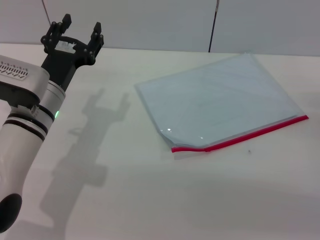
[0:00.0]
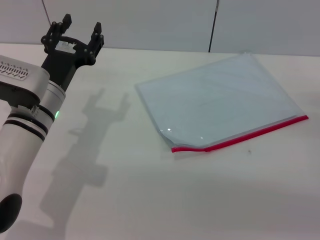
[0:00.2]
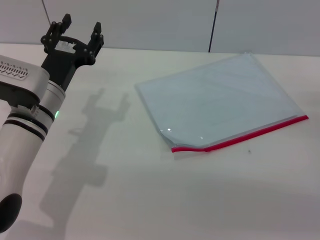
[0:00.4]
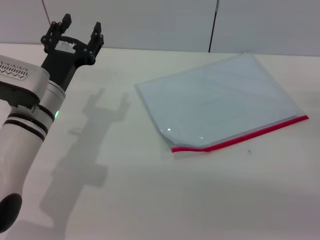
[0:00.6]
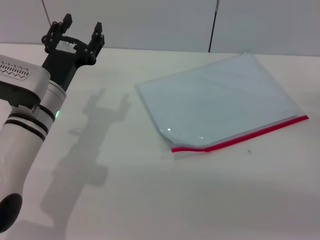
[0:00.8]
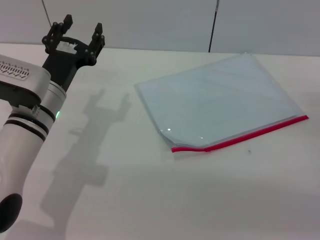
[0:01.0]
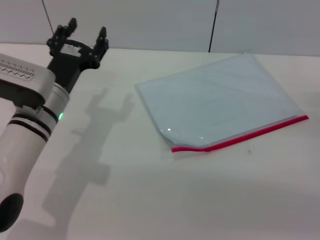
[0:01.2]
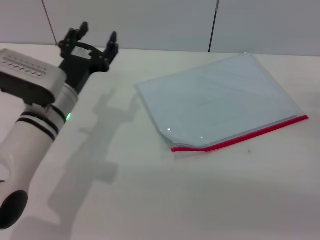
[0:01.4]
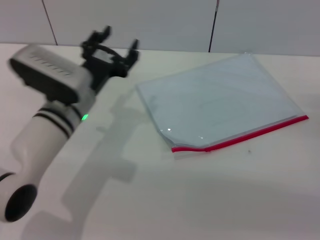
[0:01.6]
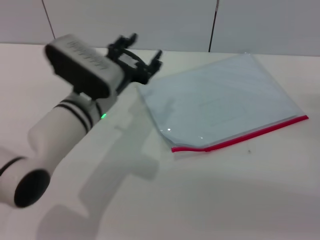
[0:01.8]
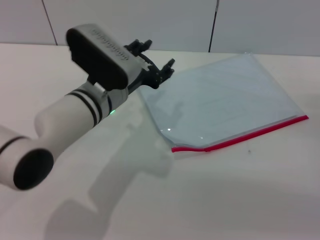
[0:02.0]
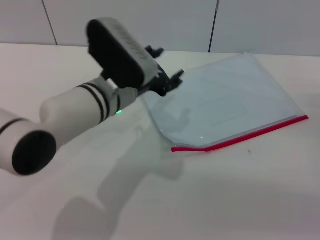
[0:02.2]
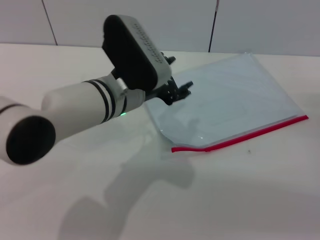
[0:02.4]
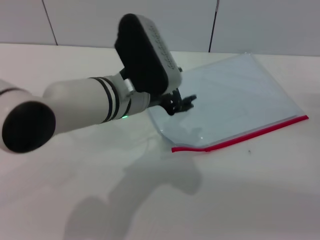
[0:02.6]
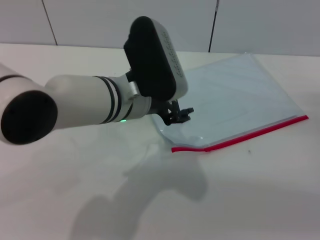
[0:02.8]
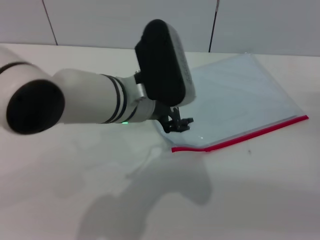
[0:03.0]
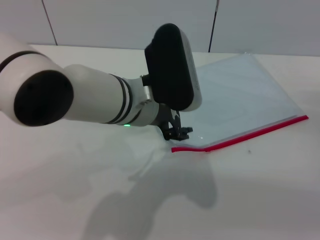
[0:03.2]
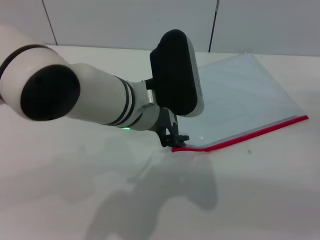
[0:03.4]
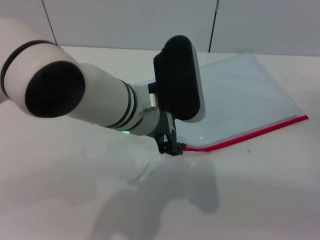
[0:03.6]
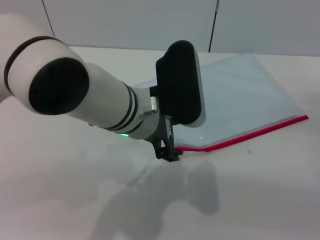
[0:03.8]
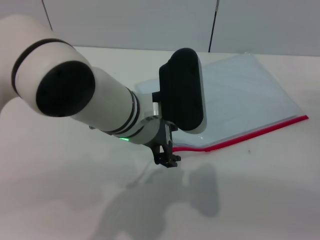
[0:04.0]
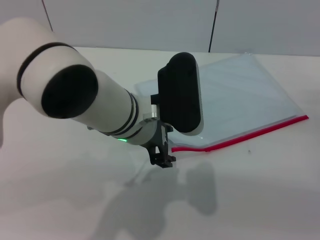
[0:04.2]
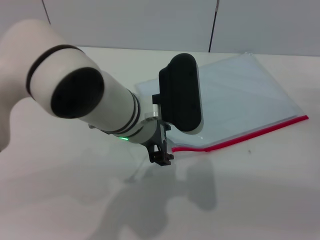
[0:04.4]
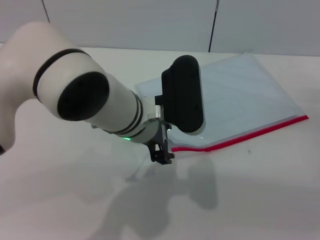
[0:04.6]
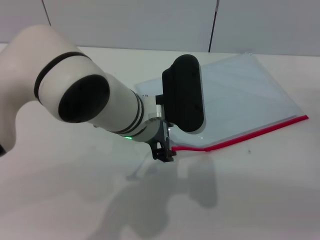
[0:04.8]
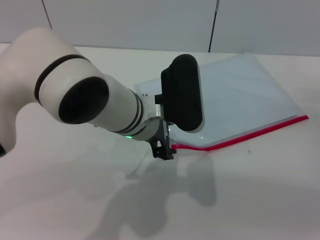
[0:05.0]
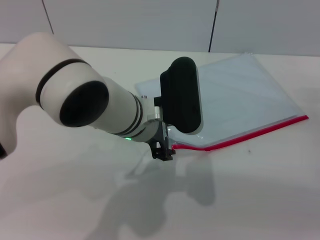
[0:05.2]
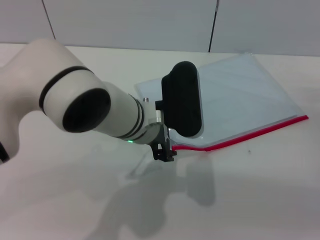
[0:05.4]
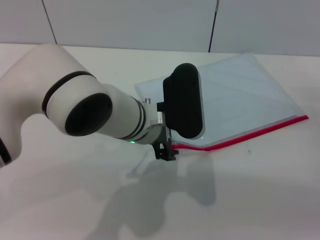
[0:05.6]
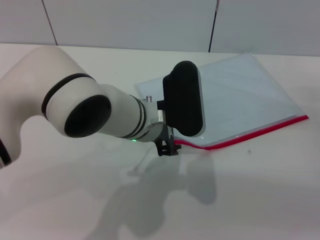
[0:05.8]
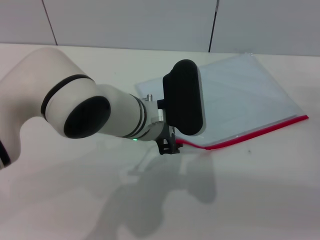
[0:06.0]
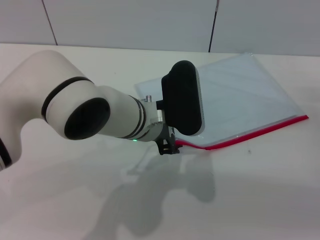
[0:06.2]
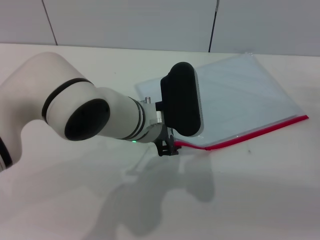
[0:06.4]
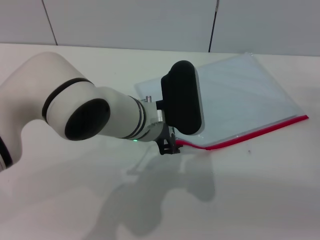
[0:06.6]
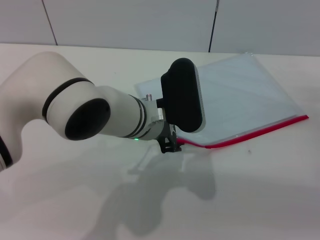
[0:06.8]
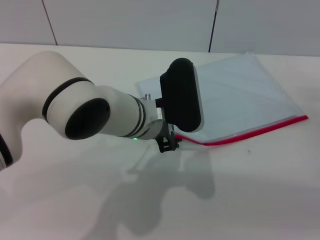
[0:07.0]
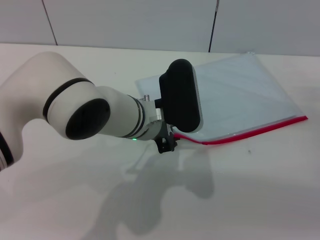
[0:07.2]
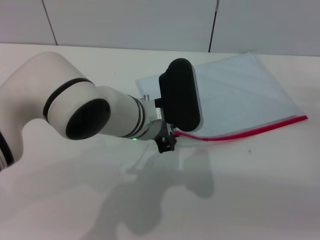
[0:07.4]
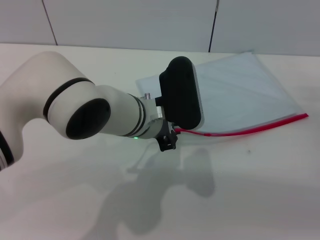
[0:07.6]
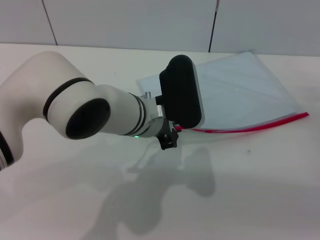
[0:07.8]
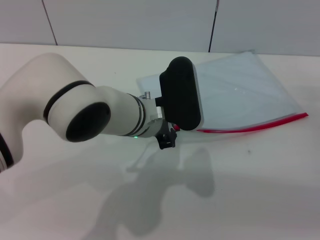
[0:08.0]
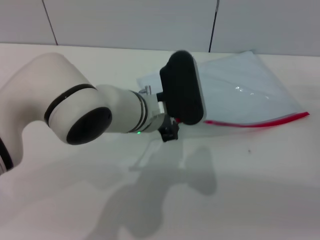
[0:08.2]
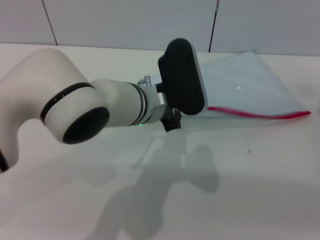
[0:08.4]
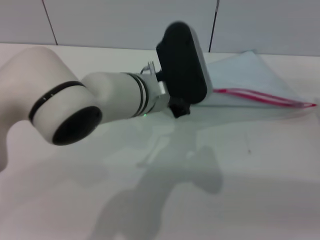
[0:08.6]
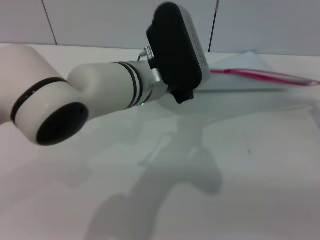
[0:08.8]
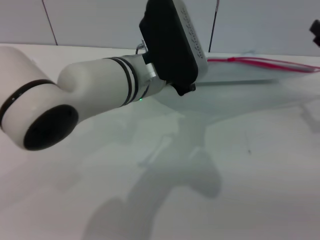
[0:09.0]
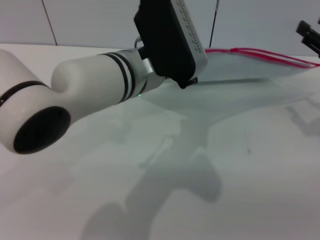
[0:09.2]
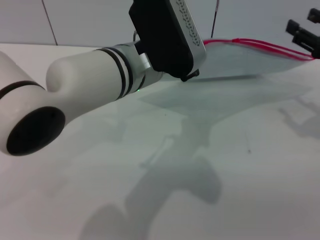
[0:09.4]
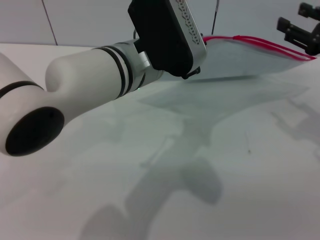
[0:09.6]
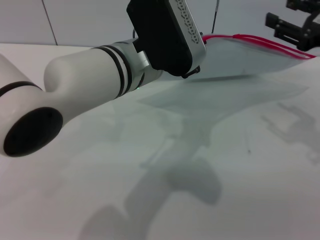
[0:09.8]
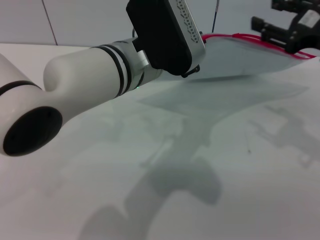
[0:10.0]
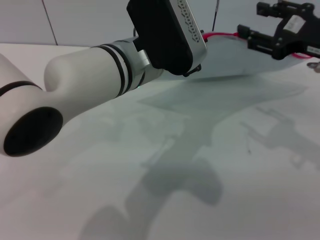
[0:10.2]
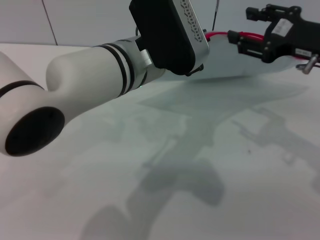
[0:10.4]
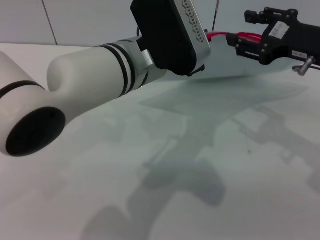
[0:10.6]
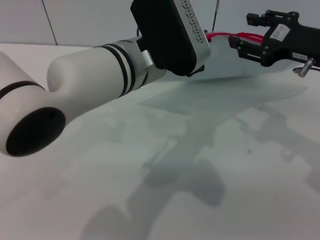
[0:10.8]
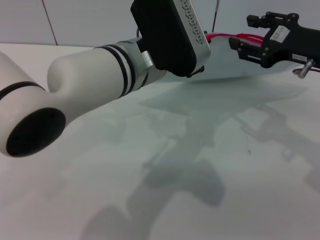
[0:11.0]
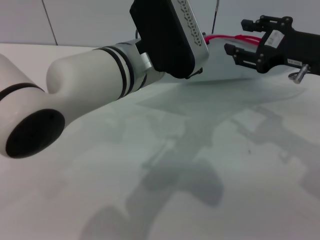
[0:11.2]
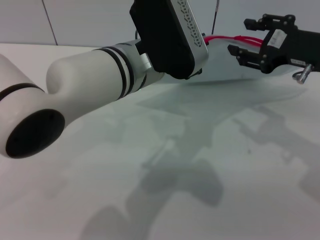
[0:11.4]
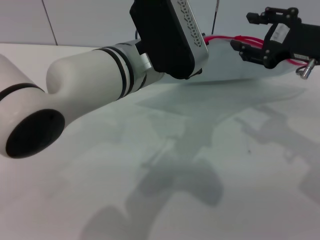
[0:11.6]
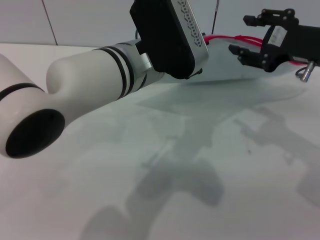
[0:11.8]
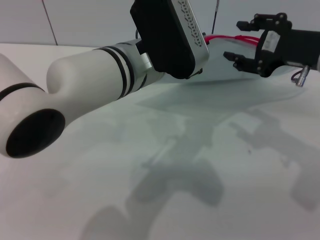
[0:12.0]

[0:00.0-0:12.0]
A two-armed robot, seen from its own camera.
Step, 0:00.0 to 0:08.6: Pick up the transparent plastic bag with the left gripper.
0:00.0 to 0:01.6: There are only small adjustments of the grippers.
0:01.6 to 0:03.0: The left gripper is displaced to the right and upward by some 10 cm.
0:03.0 to 0:04.4: The grippers move only a little.
0:04.4 to 0:06.0: The grippers move only a little.
0:06.0 to 0:07.6: The left gripper closes up.
0:07.6 to 0:09.0: The grippers both shift upward by roughly 5 cm.
0:09.0 to 0:10.4: The right gripper heads to the left and upward, covering about 10 cm.

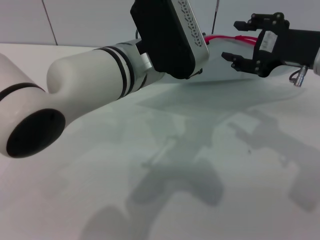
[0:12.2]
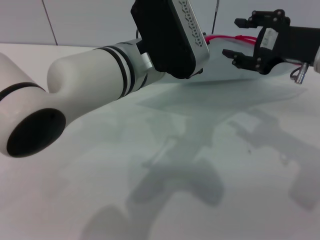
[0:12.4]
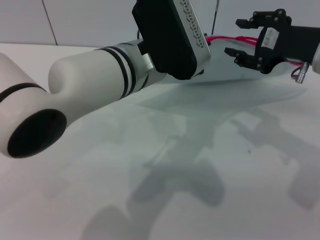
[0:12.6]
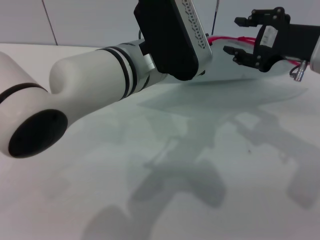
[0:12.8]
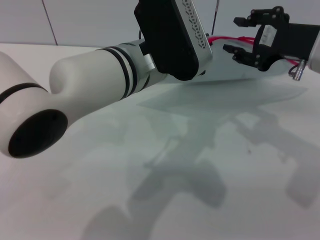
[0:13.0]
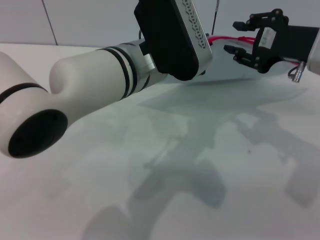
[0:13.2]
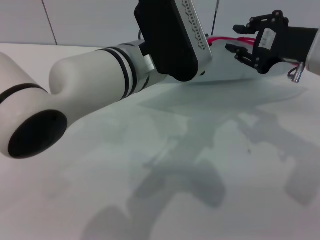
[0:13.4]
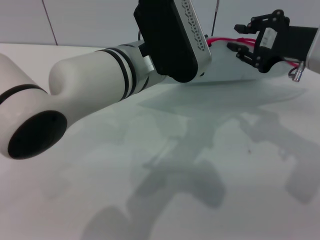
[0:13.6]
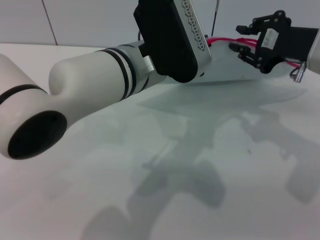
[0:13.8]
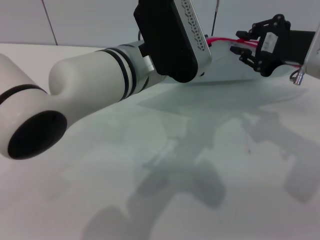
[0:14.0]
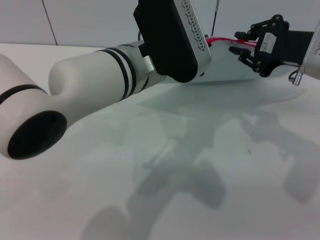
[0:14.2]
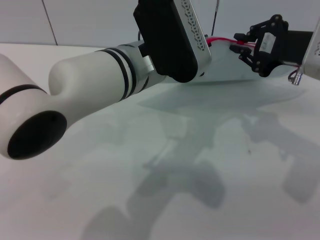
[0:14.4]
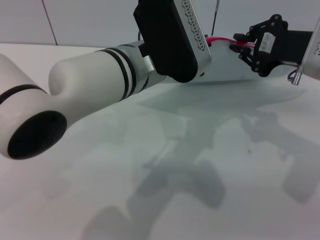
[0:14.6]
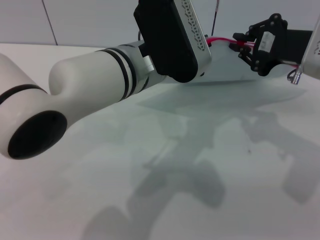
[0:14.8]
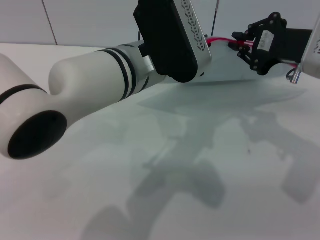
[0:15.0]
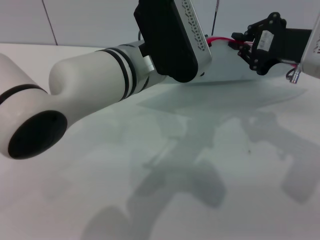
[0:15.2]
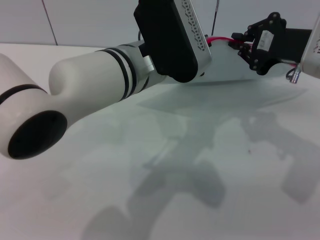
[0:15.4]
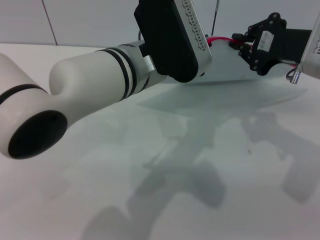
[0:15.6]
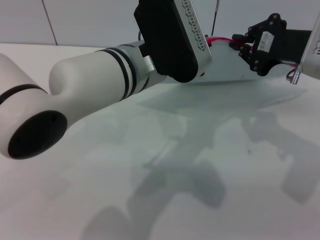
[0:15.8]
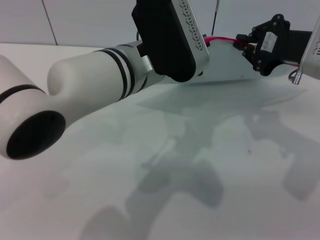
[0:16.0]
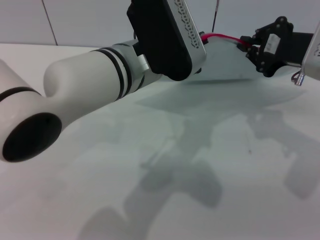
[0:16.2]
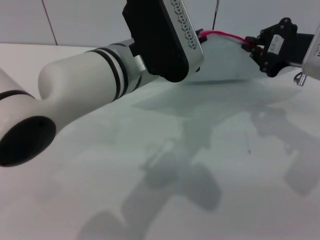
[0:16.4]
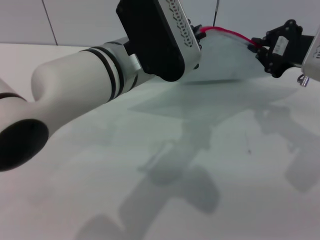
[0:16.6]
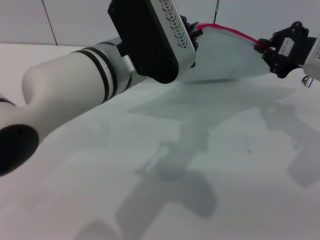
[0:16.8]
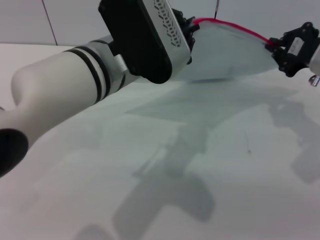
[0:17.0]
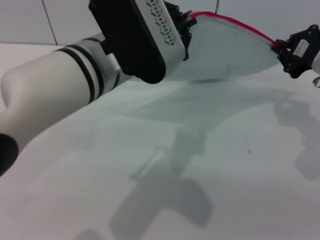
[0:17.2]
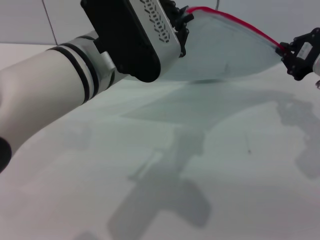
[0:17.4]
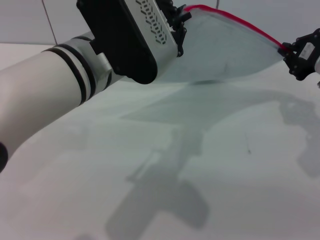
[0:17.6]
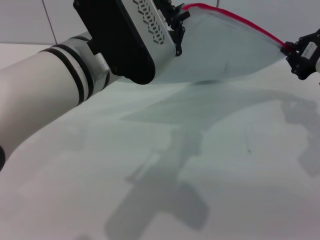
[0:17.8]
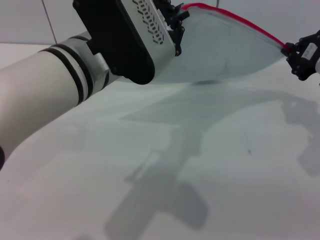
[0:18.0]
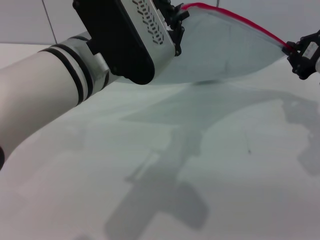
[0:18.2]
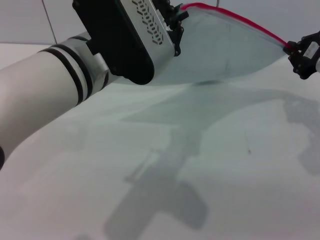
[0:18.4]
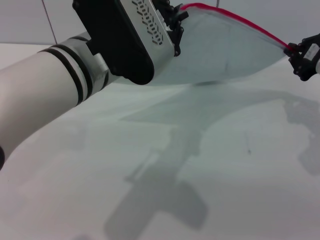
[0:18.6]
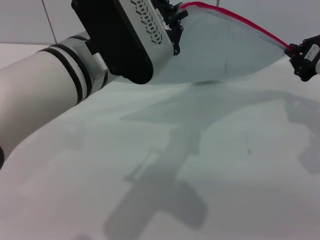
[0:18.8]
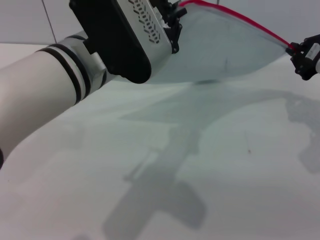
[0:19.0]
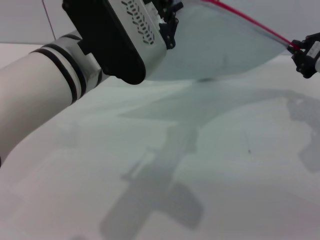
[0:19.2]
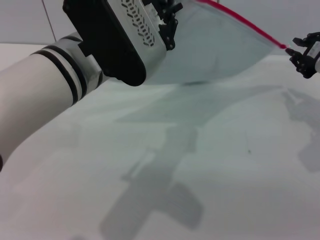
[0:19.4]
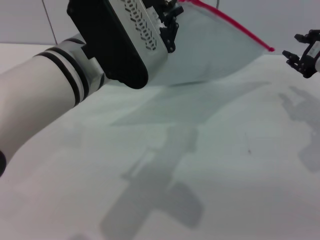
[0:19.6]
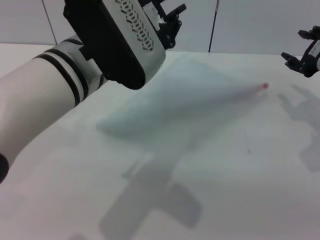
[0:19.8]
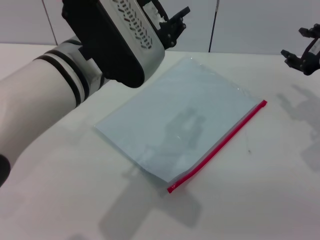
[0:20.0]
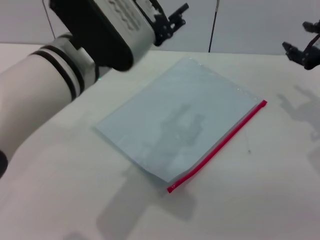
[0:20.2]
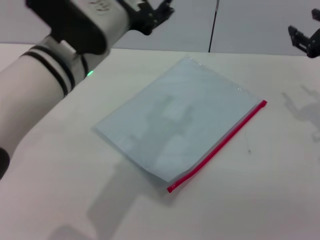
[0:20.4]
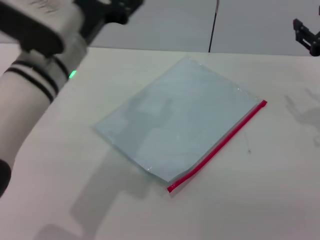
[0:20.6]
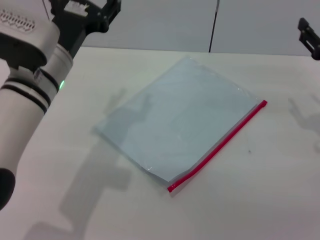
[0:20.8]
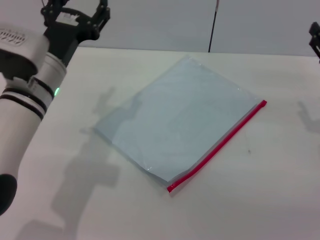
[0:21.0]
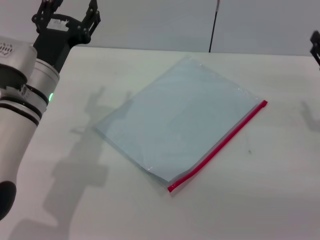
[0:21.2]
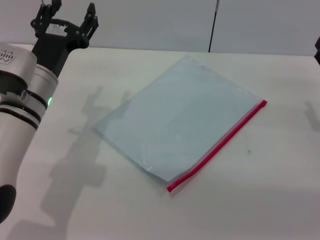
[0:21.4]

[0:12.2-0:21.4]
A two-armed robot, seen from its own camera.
Step, 0:12.2 to 0:19.8: Pulling up the zipper on the transparent plastic bag with the right gripper to close it.
Step, 0:20.0 to 0:20.4: Place the transparent plastic bag.
0:12.2 to 0:13.8: The right gripper closes.
0:13.8 to 0:15.2: The right gripper closes.
0:15.2 to 0:16.8: The grippers stay close to where they were, moving slightly.
0:18.4 to 0:19.8: The right gripper opens up.
0:19.8 to 0:21.4: The left gripper is displaced downward and to the left by about 15 cm, and opens, while the right gripper goes roughly 10 cm downward and backward.
